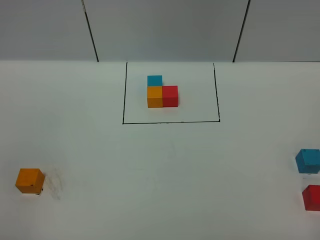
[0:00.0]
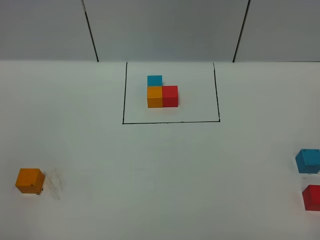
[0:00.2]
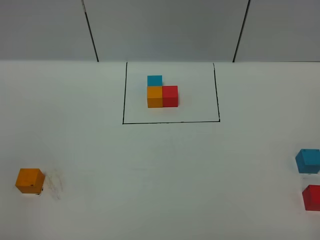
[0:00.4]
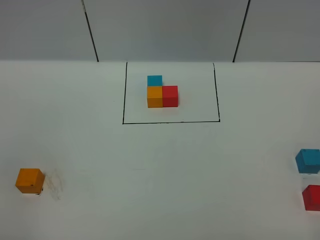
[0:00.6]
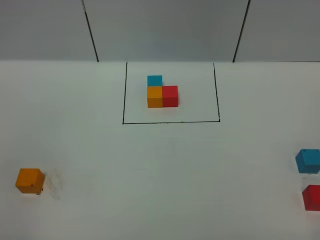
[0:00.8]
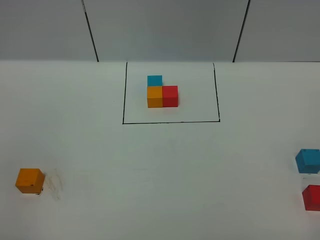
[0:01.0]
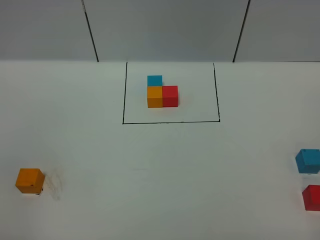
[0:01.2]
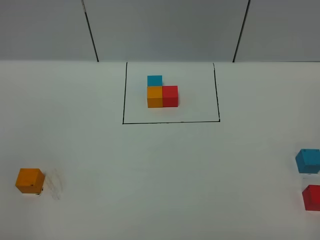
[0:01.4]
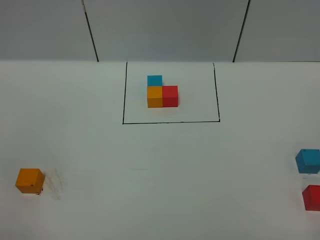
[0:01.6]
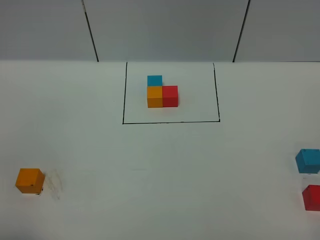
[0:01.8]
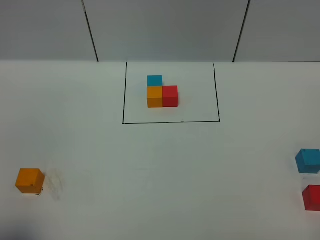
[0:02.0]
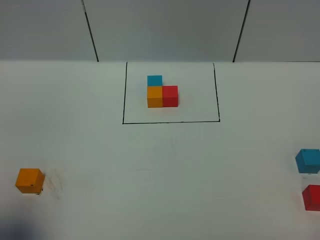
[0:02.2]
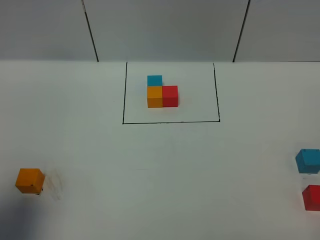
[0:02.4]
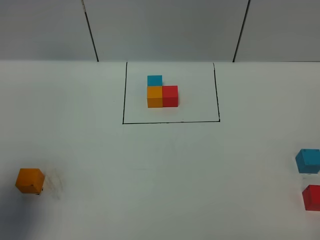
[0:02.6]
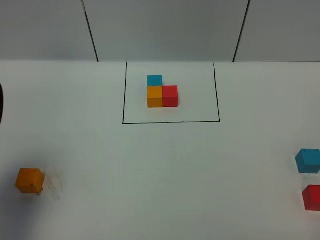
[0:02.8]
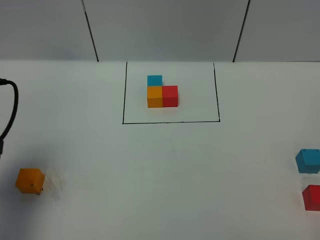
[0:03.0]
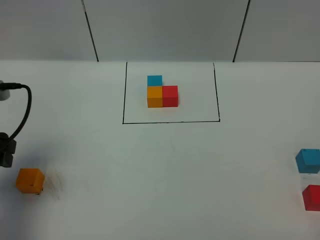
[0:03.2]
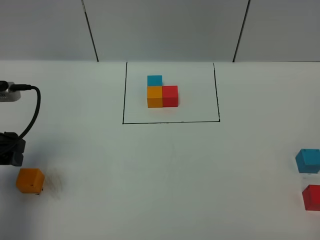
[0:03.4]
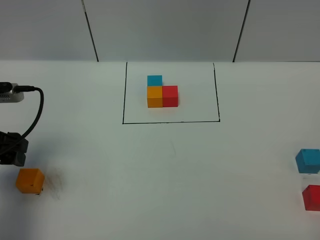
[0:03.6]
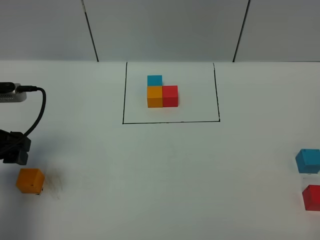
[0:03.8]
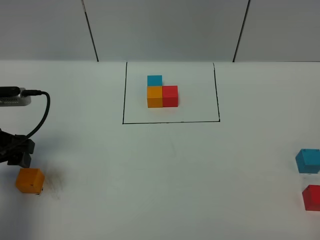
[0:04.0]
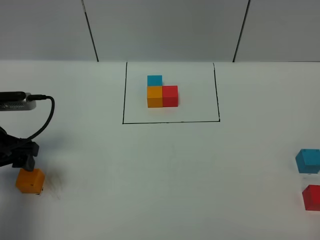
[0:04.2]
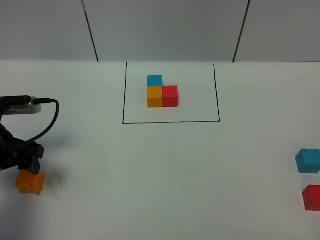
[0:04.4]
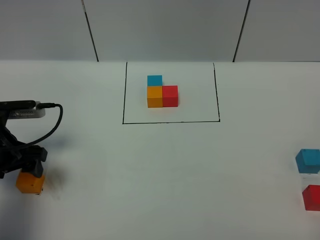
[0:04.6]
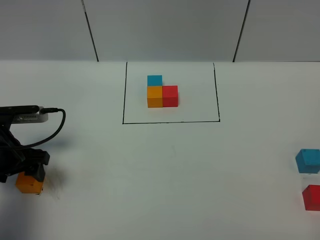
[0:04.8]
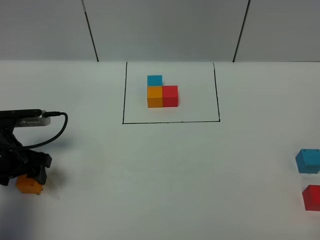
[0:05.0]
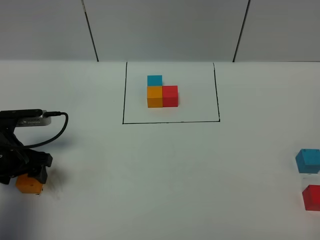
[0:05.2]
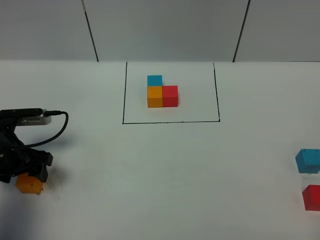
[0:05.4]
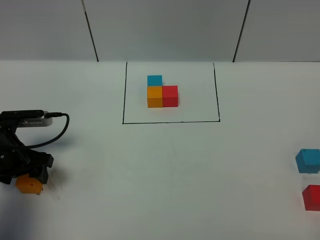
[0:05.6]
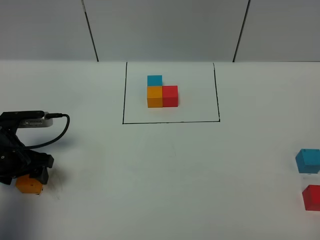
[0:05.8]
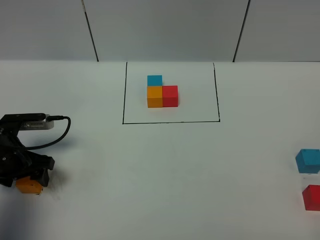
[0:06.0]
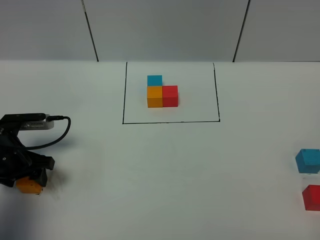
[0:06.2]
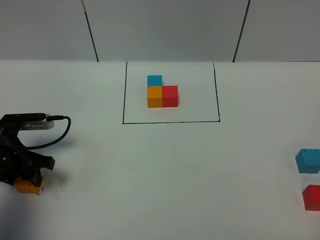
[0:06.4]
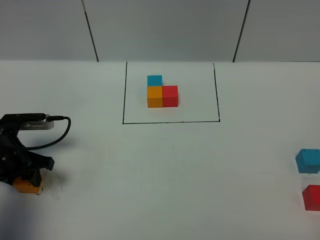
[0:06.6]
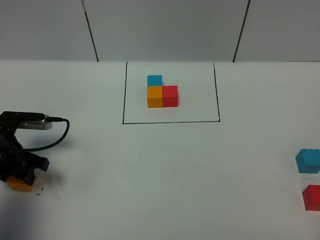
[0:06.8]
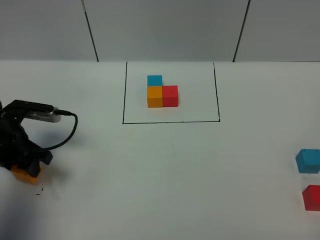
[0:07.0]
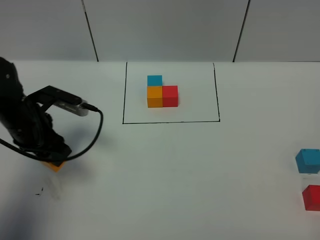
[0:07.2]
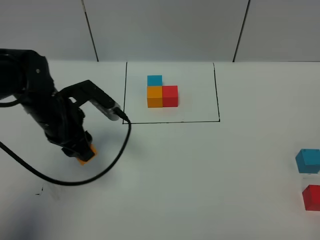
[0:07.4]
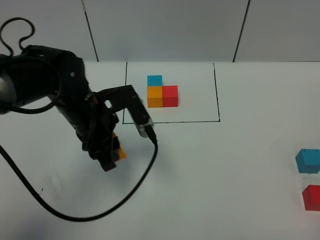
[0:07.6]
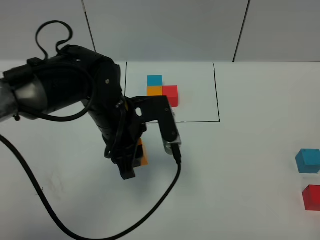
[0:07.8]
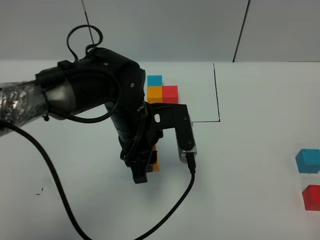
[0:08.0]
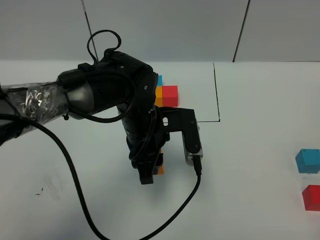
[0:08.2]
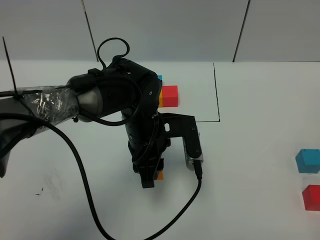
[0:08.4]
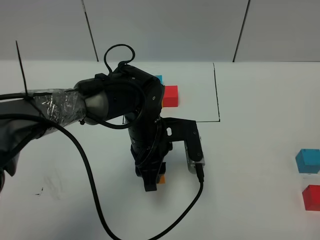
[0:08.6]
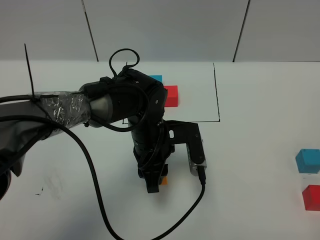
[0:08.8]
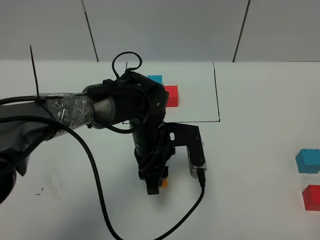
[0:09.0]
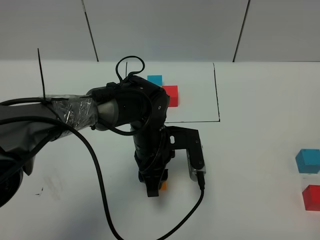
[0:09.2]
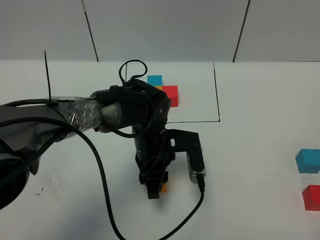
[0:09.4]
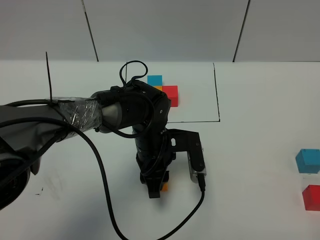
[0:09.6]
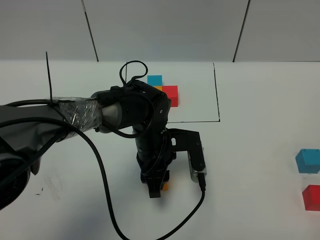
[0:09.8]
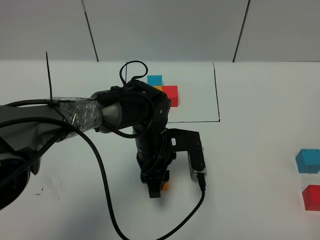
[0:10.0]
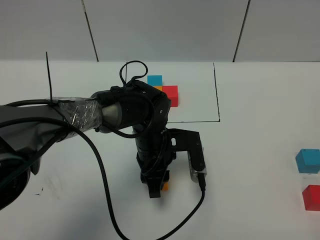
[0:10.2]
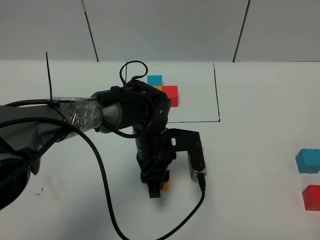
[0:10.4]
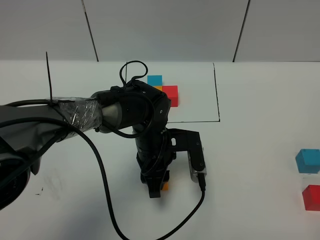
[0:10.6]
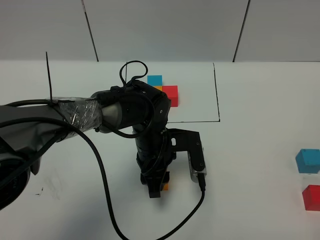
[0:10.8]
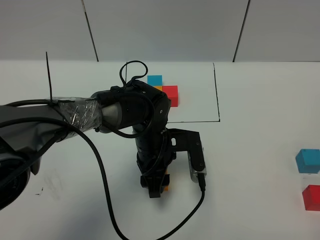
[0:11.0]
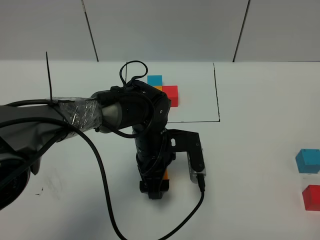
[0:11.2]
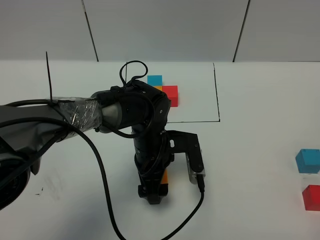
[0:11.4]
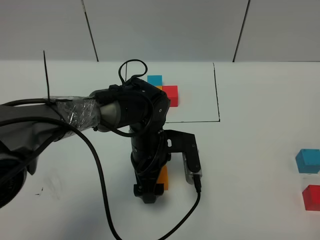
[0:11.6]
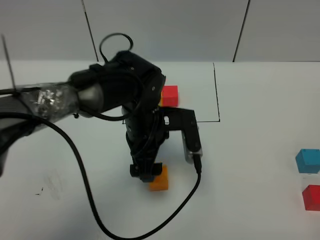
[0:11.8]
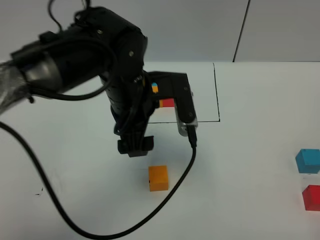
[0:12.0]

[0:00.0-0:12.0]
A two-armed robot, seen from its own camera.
Task of the whole recording: According to the building block template in front, assemble the scattered blocks together.
Step, 0:02.8 to 0:11.4: Put the orange cube in the center of the table.
0:01.6 to 0:03.0: The left gripper moves forward, roughly 20 cm.
0:03.0 to 0:04.4: The left gripper heads downward and forward, covering approximately 10 cm.
0:04.4 to 0:06.0: The left gripper goes about 5 cm downward.
0:06.0 to 0:07.6: The left gripper shifts some 20 cm to the right and upward, and closes up.
0:07.6 to 0:09.0: The left gripper travels to the right and downward by roughly 10 cm.
0:09.0 to 0:10.4: There are only small adjustments of the grippers.
0:10.4 to 0:12.0: The left gripper shifts some 15 cm upward, and opens up.

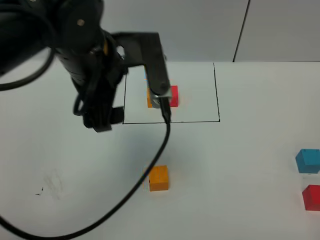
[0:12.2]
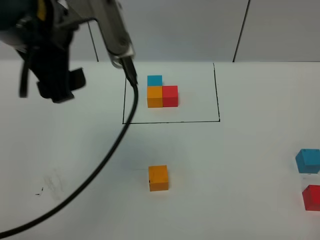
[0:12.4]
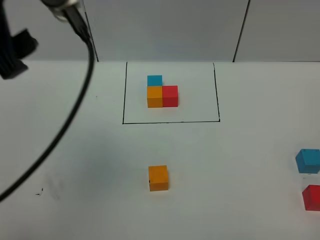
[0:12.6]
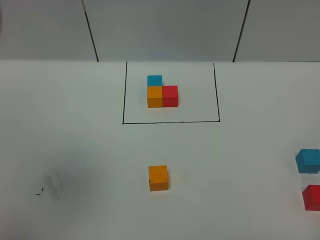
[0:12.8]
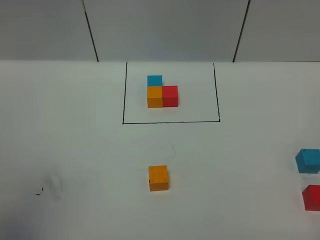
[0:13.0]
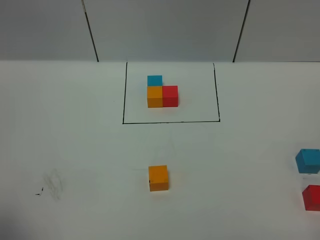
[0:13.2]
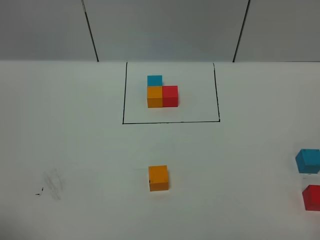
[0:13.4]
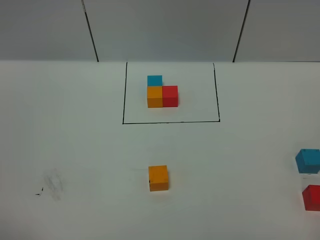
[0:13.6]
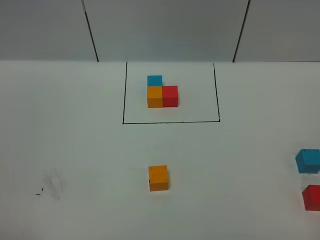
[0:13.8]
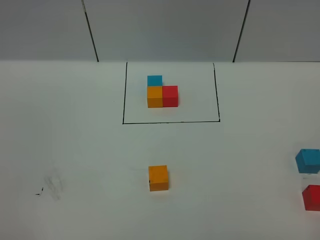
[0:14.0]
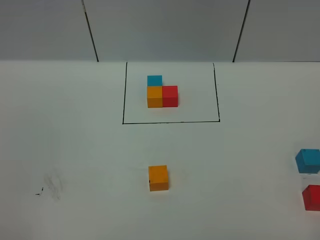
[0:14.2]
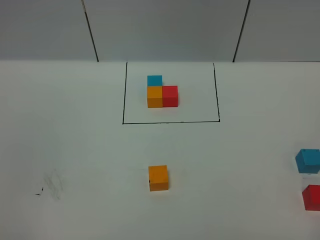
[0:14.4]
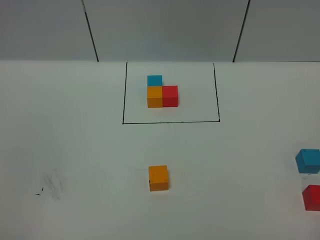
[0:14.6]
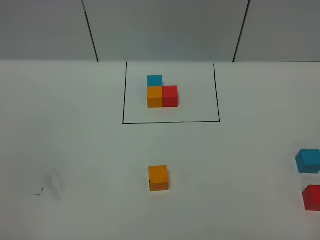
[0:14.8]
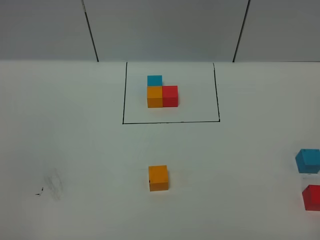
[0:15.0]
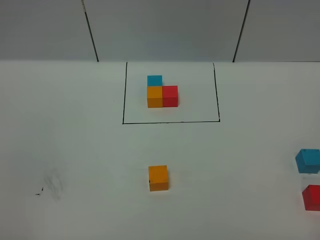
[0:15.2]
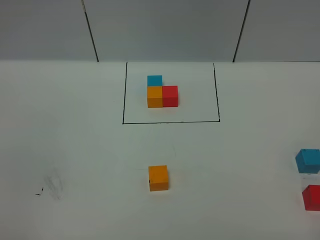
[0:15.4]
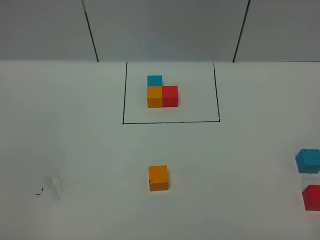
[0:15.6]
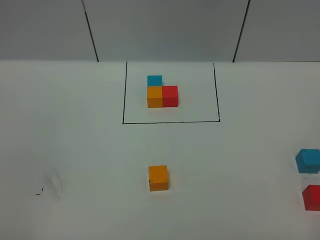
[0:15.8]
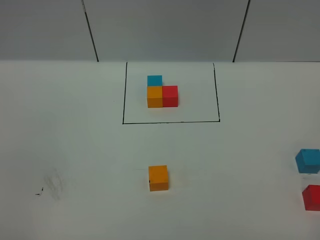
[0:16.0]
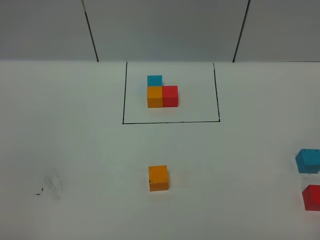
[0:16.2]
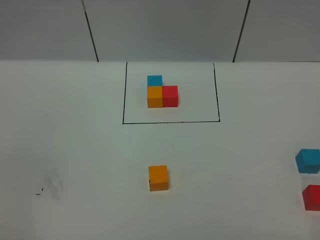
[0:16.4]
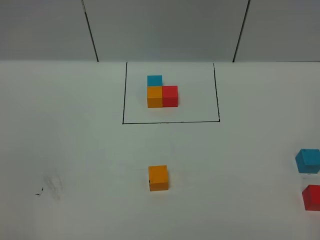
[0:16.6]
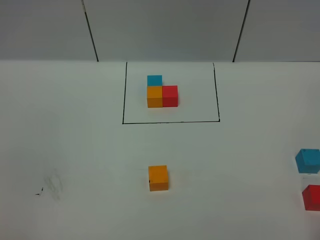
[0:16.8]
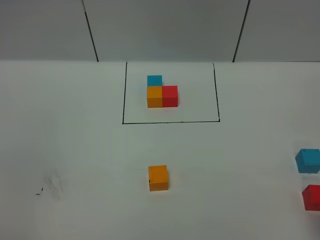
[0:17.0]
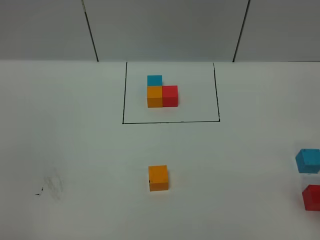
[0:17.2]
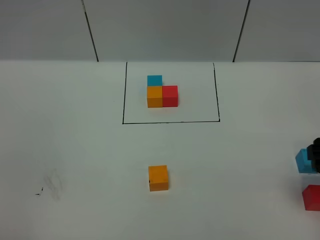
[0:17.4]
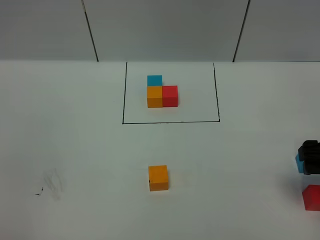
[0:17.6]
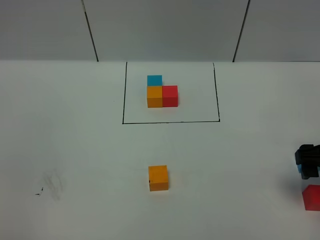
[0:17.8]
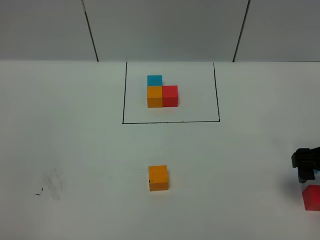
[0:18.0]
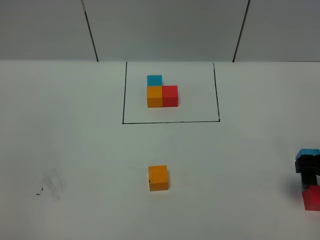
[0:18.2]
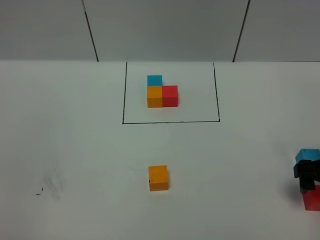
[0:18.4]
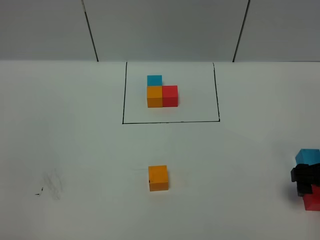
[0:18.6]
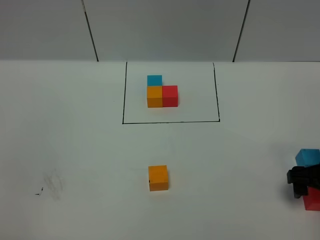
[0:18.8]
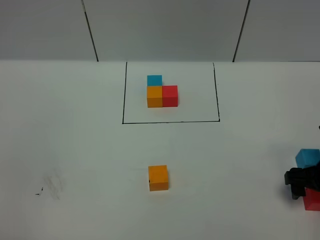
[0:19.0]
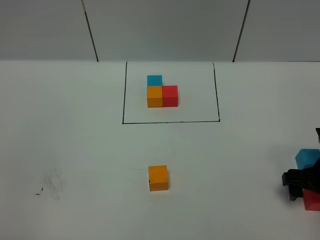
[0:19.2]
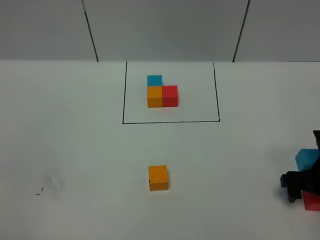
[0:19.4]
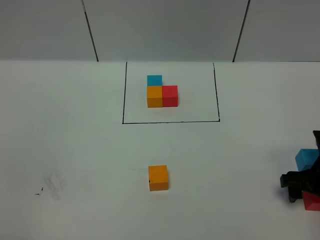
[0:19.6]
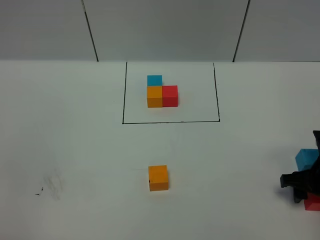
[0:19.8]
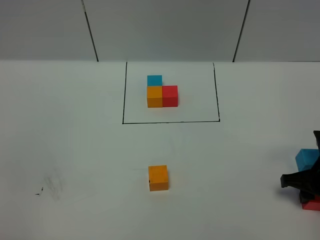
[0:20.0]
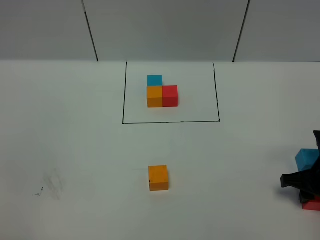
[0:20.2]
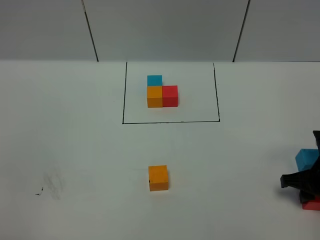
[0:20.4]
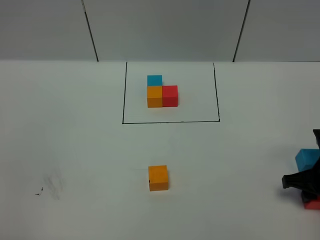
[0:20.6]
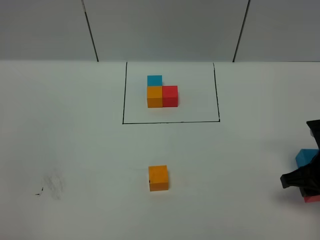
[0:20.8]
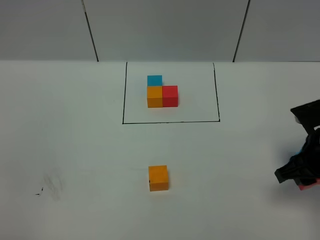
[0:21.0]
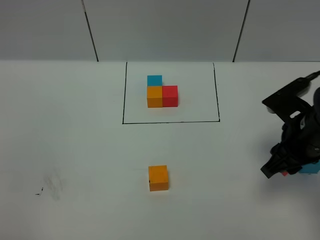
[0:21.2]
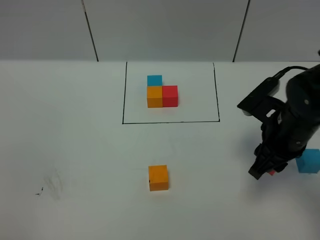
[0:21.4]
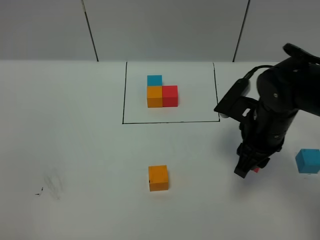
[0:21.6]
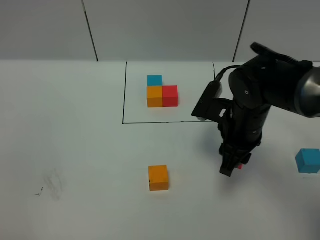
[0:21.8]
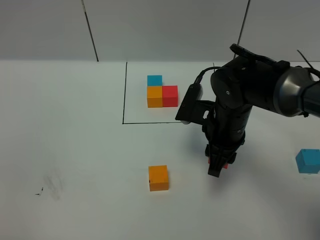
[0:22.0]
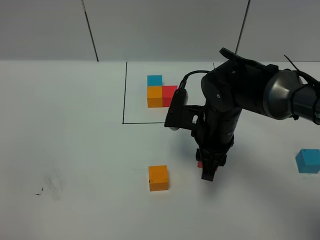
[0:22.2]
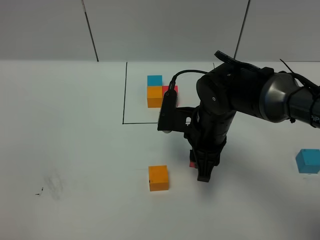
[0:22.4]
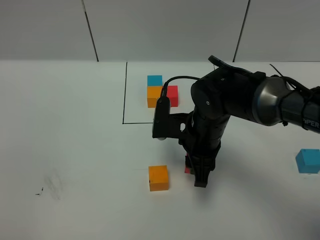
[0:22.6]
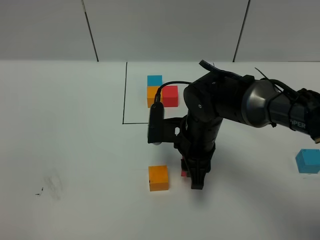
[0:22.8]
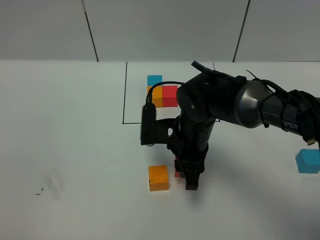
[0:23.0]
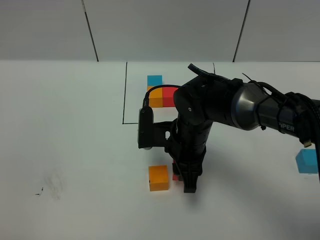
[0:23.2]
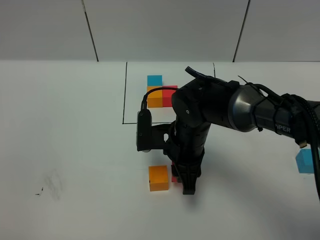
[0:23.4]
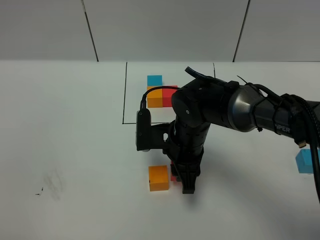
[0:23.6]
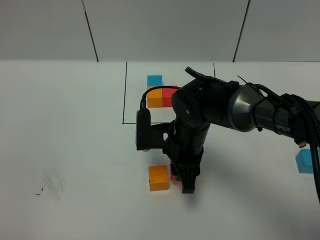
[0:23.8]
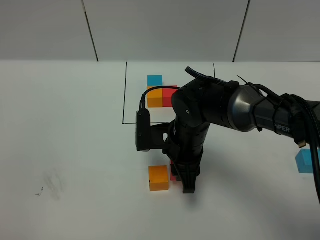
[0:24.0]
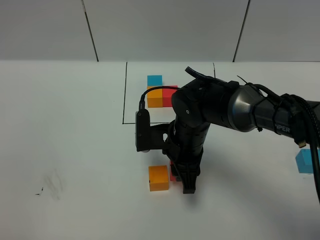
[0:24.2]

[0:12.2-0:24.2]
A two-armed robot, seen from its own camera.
Task of the whole recording: According to the building block template in front, assemble the scattered blocks together.
0:12.2 to 0:13.8: The left gripper is displaced backward and to the left by approximately 40 cm.
0:16.6 to 0:18.2: The right gripper travels forward by roughly 20 cm.
0:18.2 to 0:19.8: The right gripper heads downward, covering roughly 5 cm, and closes.
0:19.8 to 0:21.2: The right gripper travels upward and to the left by approximately 10 cm.
0:21.2 to 0:22.6: The right gripper shifts approximately 15 cm to the left.
0:22.6 to 0:24.2: The grippers make only small movements.
